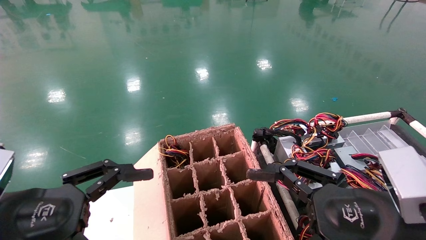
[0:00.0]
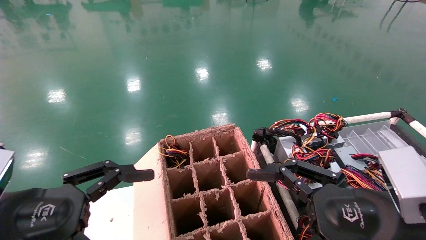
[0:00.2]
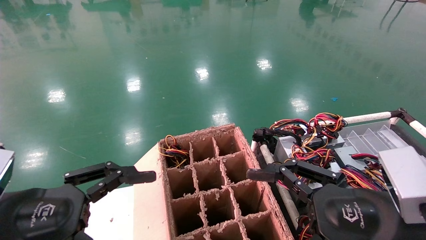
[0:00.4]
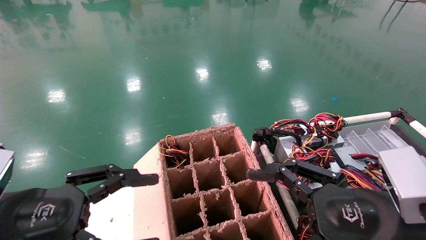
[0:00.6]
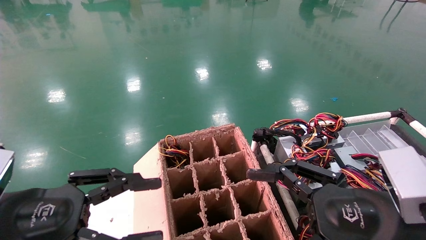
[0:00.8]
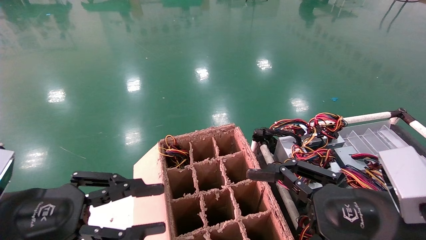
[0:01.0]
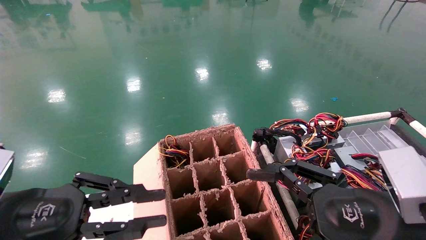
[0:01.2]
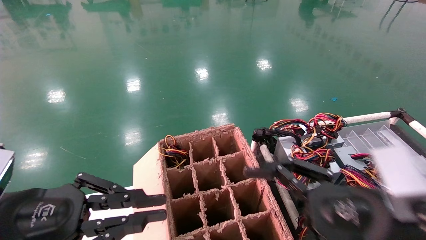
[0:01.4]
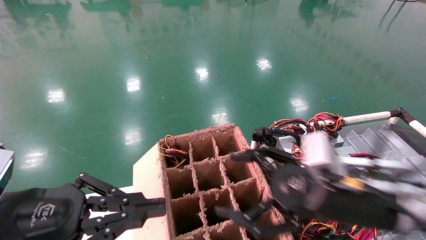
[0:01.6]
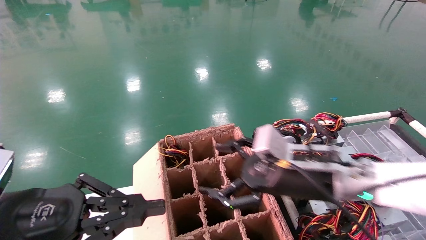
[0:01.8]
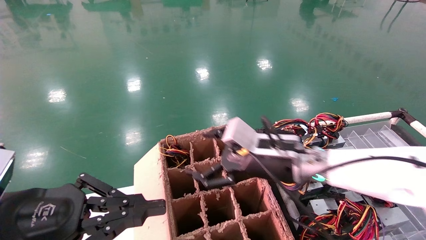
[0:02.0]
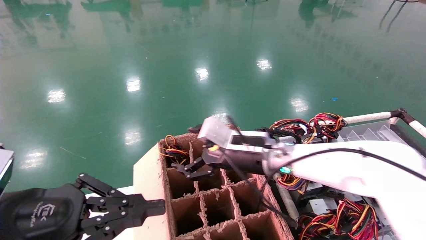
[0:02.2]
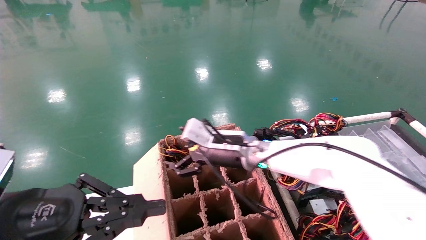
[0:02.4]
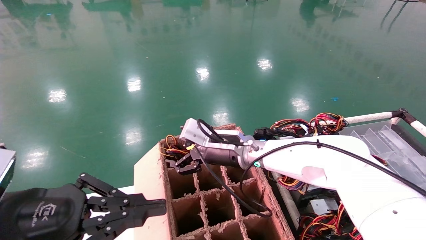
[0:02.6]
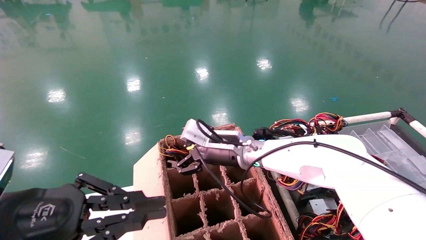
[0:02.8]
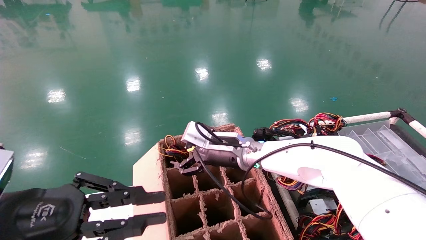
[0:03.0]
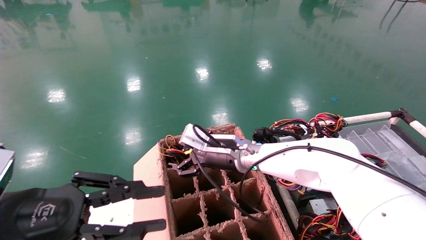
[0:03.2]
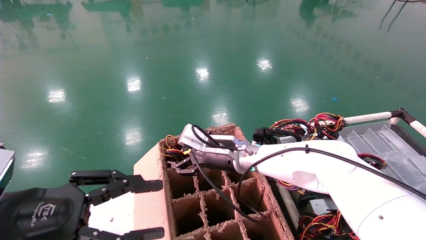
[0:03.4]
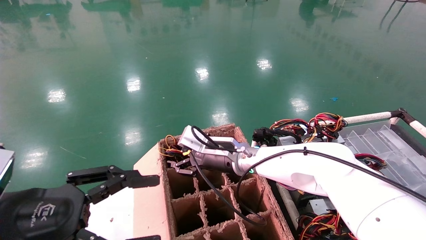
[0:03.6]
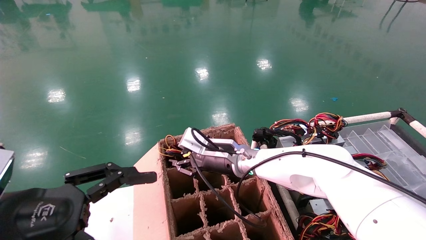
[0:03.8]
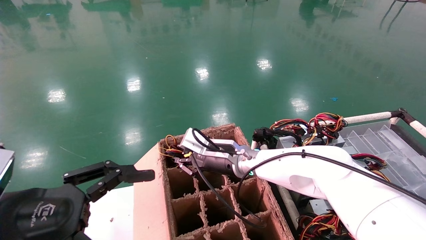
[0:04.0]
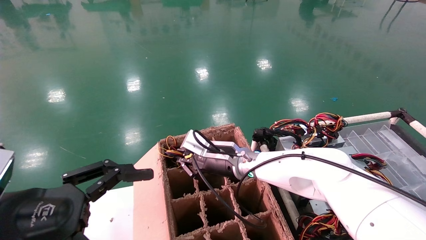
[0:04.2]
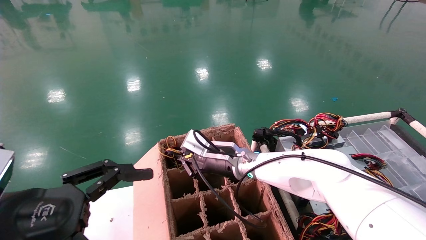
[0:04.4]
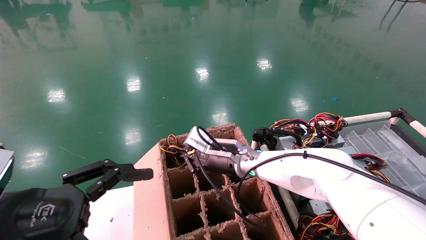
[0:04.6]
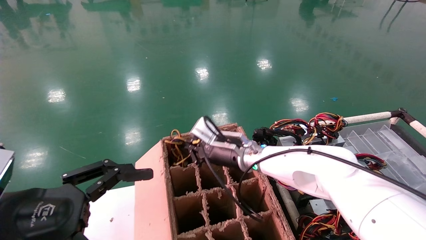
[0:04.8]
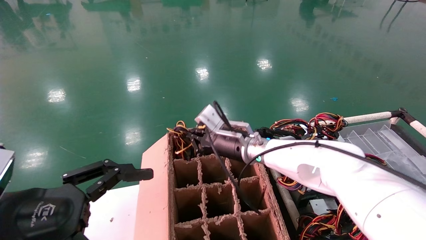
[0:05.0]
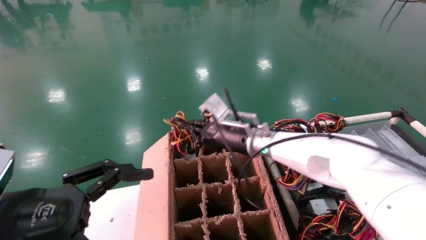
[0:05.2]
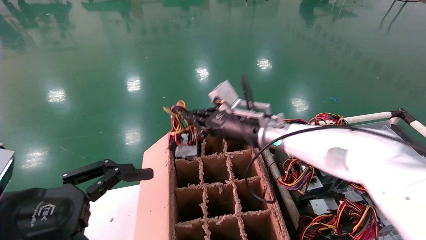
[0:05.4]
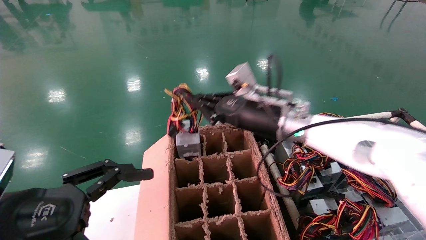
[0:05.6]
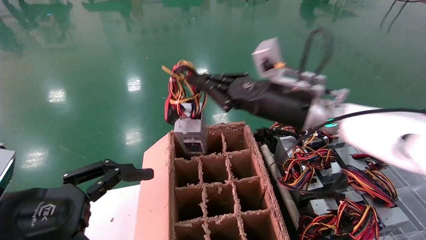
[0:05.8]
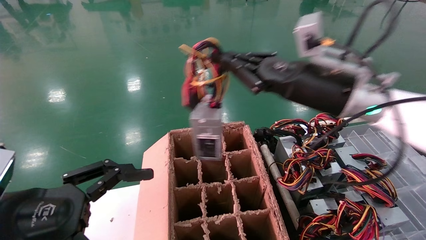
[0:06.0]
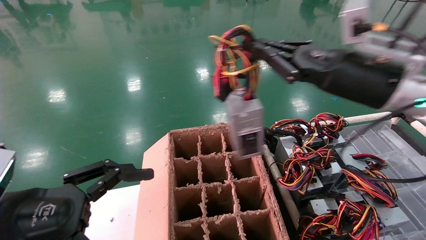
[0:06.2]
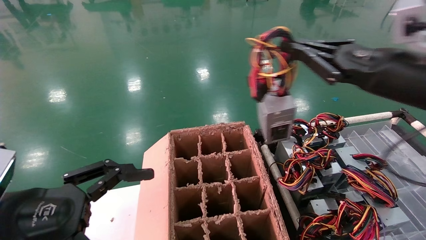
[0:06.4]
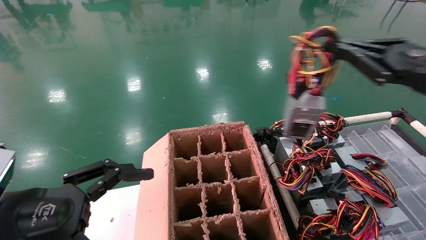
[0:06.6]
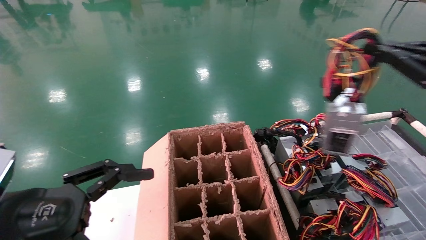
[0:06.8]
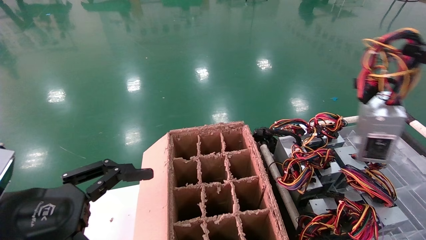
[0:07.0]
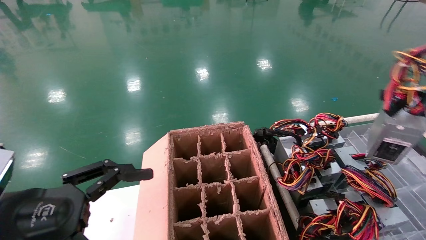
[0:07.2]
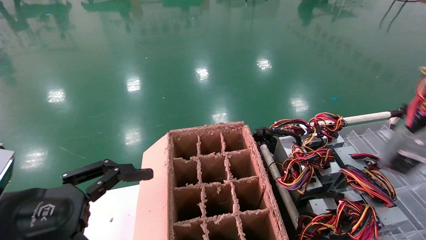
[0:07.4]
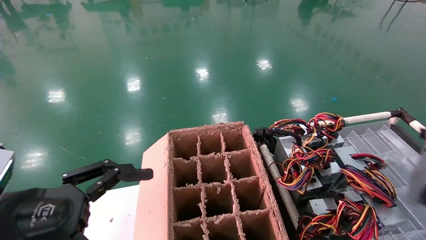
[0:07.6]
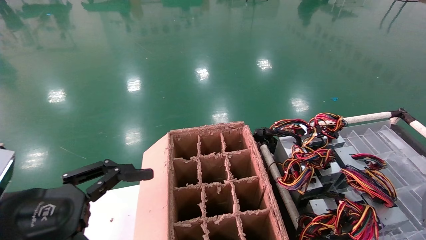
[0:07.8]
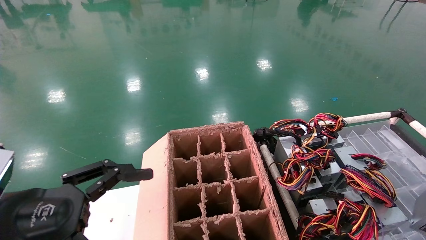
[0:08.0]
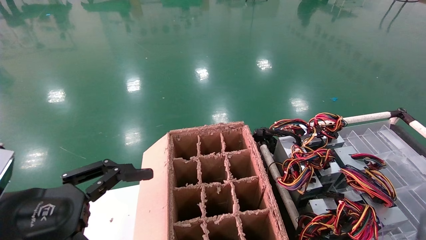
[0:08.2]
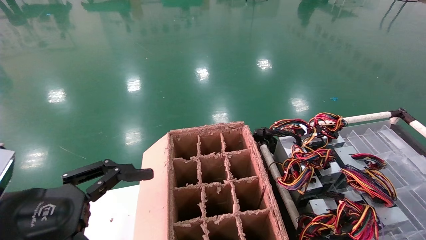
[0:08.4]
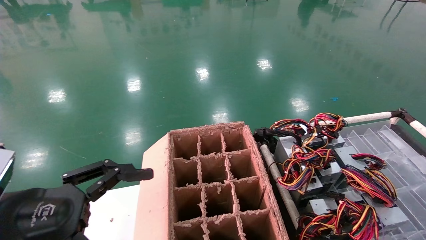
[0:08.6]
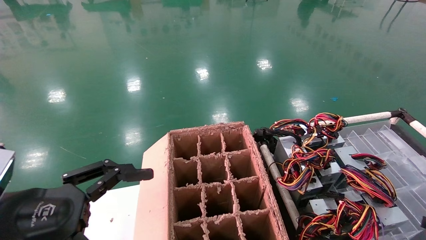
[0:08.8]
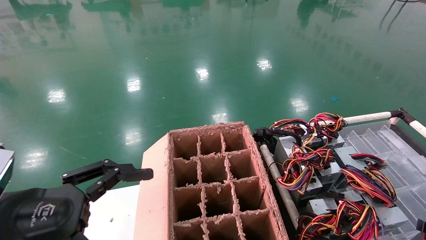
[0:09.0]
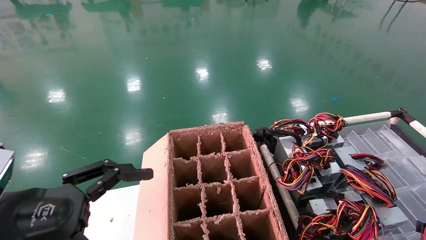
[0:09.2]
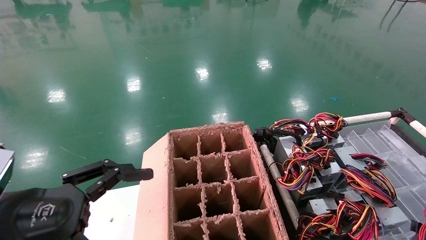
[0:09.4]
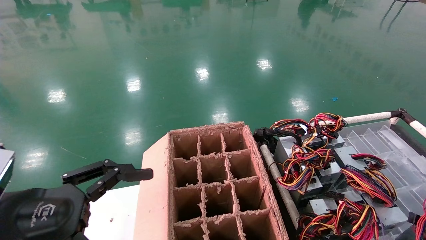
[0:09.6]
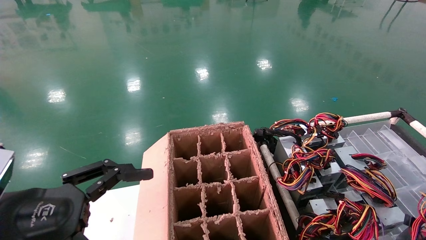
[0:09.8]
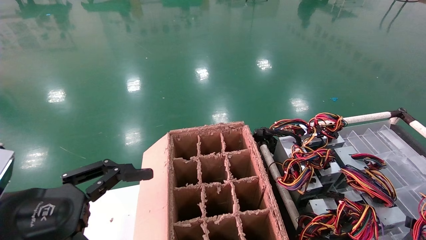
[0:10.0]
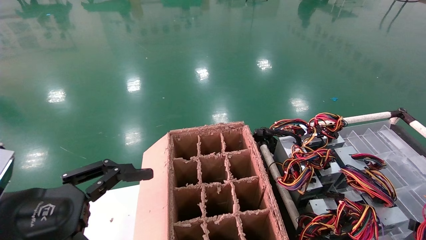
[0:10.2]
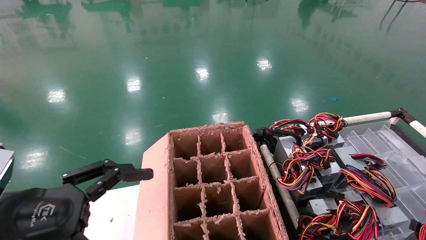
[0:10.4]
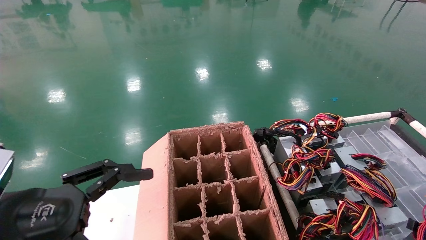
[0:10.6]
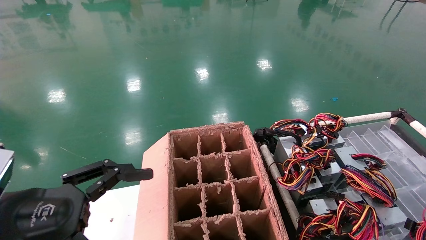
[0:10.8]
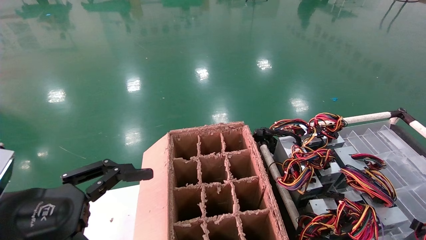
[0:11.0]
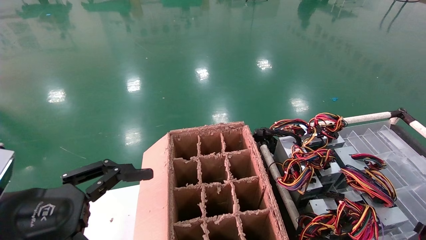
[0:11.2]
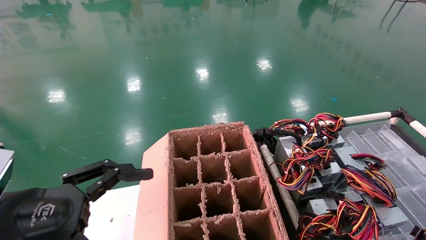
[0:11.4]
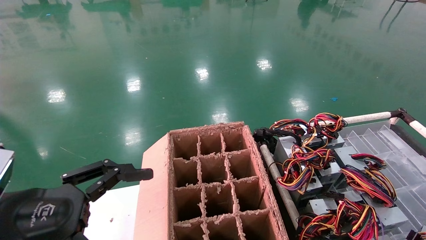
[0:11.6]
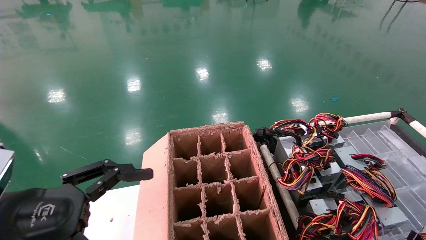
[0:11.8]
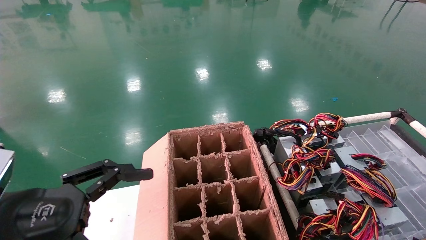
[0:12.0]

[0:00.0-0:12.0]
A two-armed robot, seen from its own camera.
Step, 0:01.0 to 0:04.4: Grab and lift the power supply from the large box.
0:00.0 to 0:01.6: The right gripper shifts approximately 10 cm forward. Meanwhile the left gripper closes.
0:01.6 to 0:03.0: The right gripper moves forward and to the left, about 25 cm.
0:03.0 to 0:04.4: The right gripper closes; the left gripper opens.
0:04.4 to 0:06.0: The right gripper moves upward, to the right and backward, some 25 cm.
0:06.0 to 0:07.6: The right gripper moves to the right and backward, some 40 cm.
0:07.6 to 0:09.0: The right gripper shifts approximately 10 cm downward.
0:09.0 to 0:12.0: The grippers stay close to where they were, moving slightly.

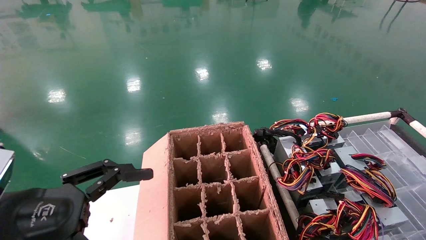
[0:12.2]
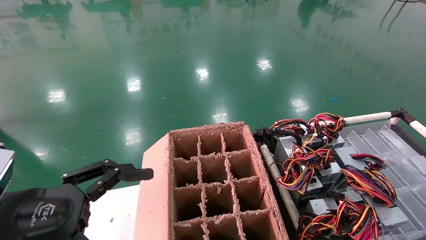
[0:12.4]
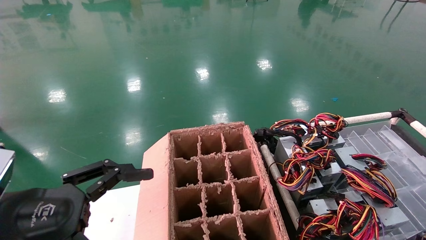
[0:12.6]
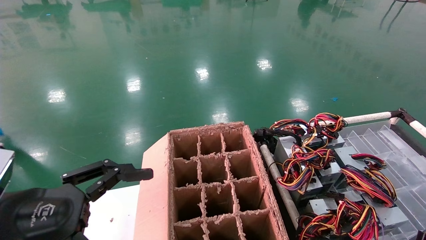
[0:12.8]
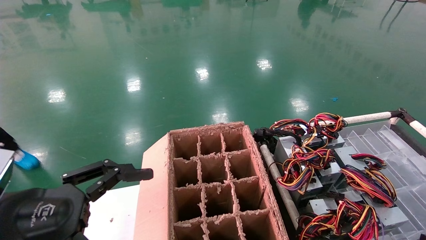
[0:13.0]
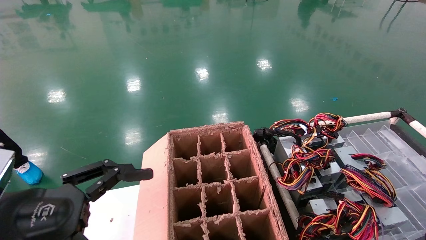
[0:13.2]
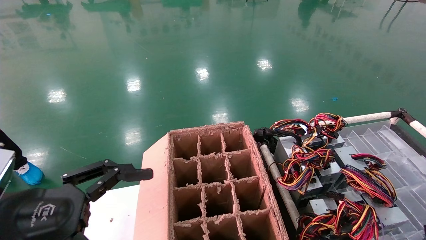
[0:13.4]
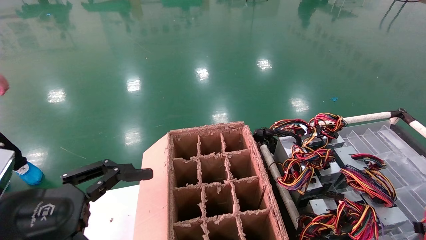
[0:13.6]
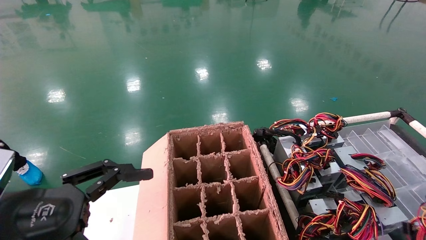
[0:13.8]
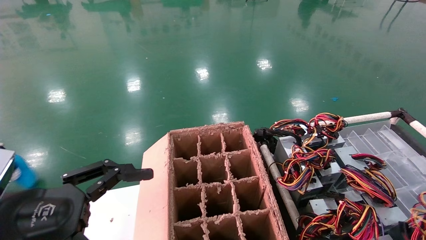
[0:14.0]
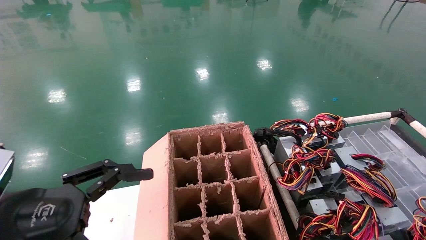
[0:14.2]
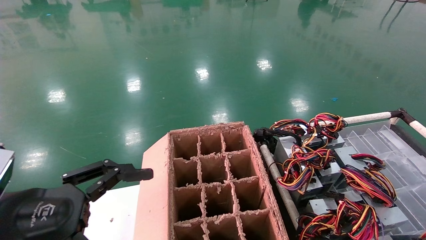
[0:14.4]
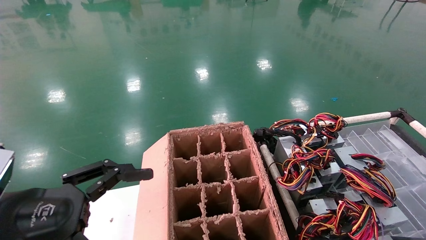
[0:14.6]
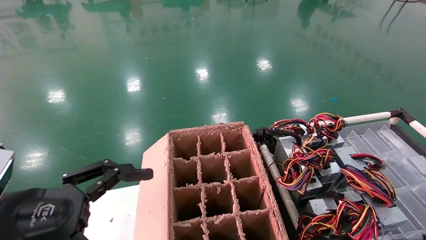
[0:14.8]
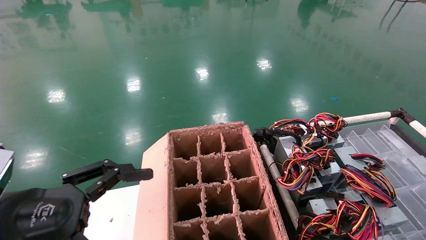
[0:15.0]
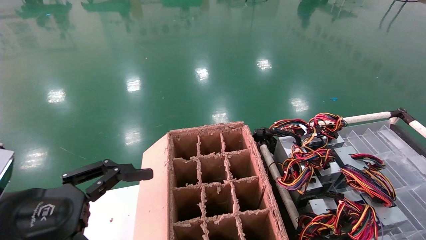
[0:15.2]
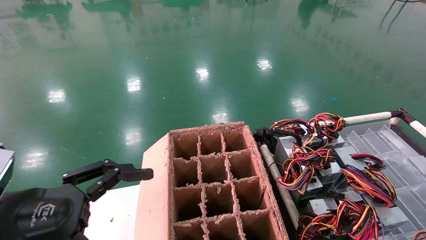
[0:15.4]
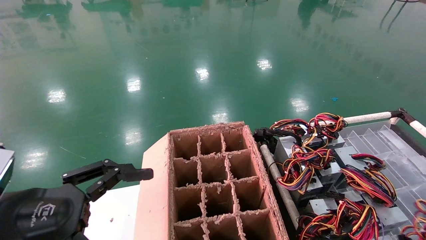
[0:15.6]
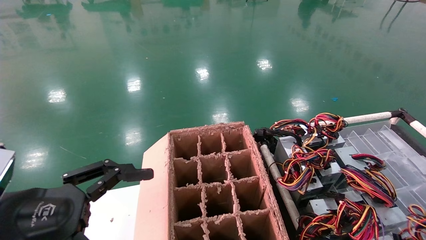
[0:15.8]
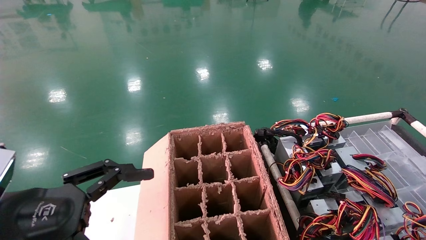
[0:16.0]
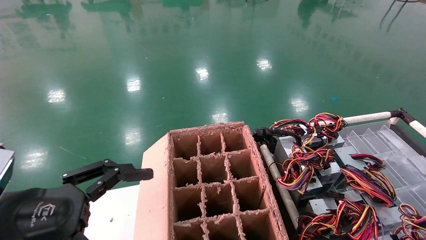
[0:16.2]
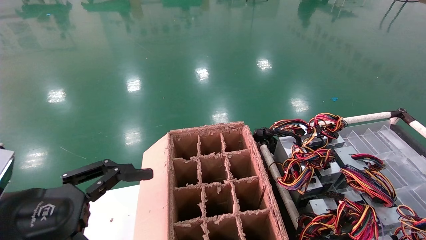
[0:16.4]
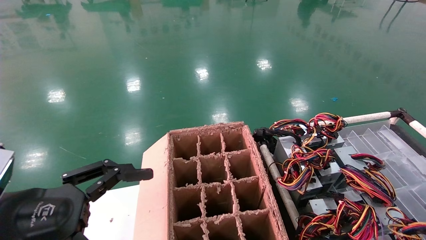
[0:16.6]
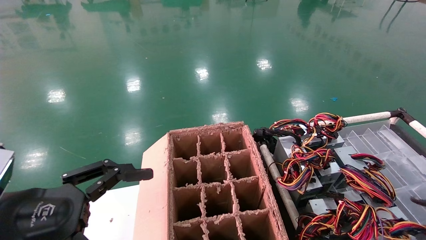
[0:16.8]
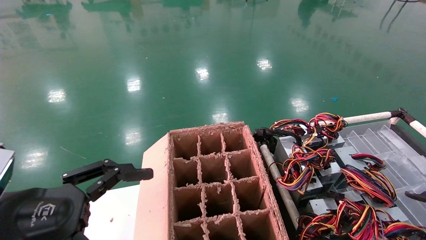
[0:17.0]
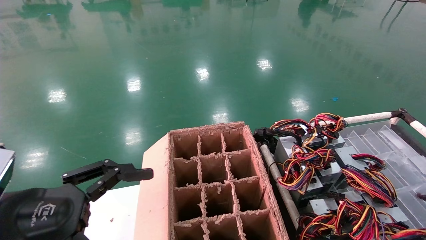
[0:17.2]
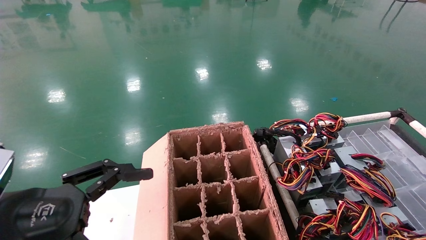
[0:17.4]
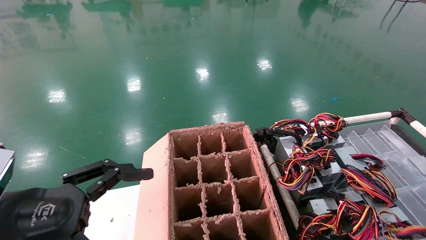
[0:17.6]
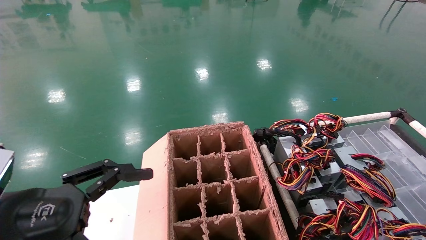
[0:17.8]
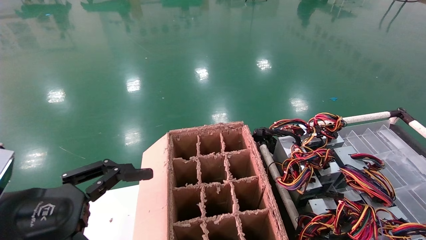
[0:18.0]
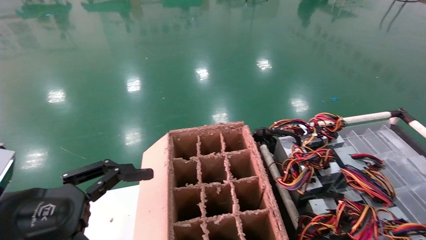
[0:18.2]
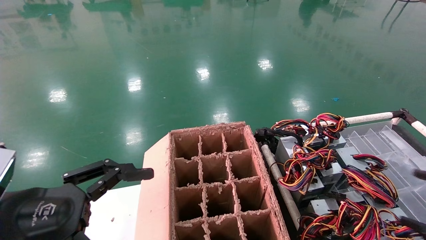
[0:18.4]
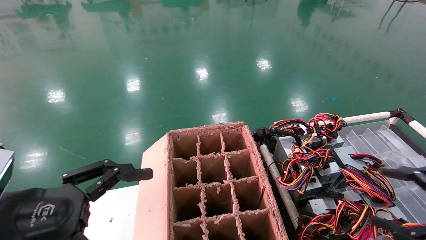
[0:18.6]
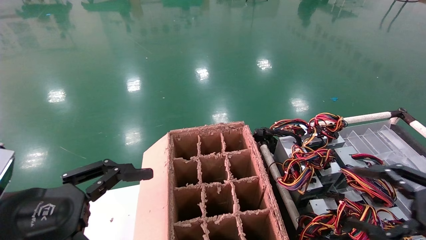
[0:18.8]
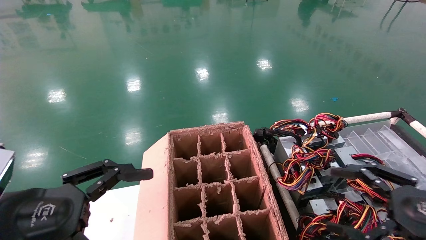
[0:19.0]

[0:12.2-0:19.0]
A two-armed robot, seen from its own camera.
Step, 0:12.2 to 0:16.4: Place the power supply on the operating table.
0:13.6 to 0:15.0: There are only small adjustments of the grippers.
0:16.2 to 0:17.6: The right gripper opens its fingers.
0:17.6 to 0:19.0: The right gripper travels to the left by roughly 15 cm.
